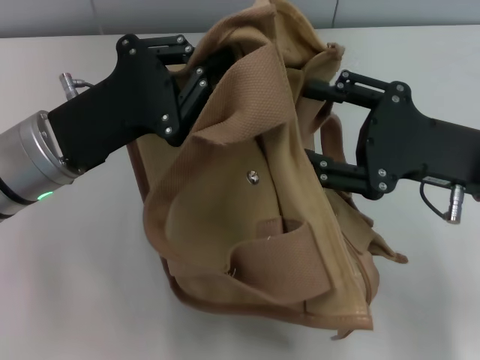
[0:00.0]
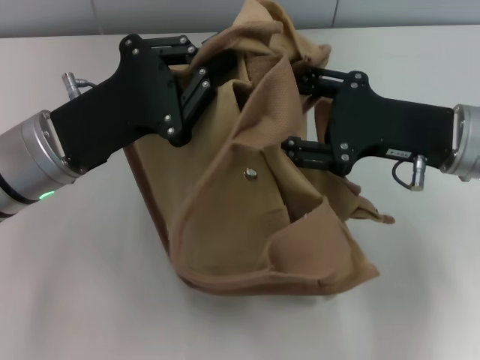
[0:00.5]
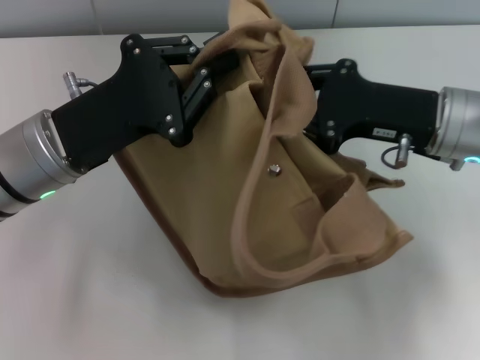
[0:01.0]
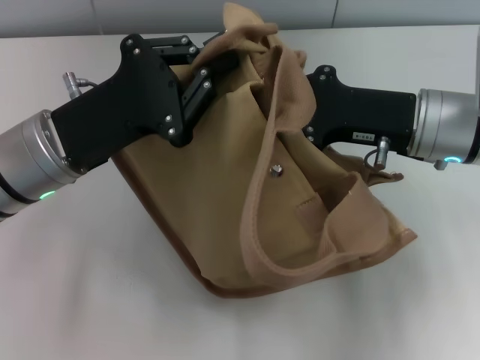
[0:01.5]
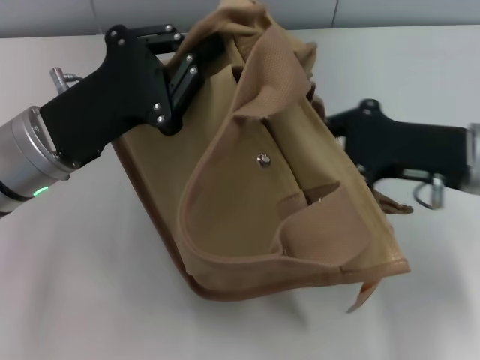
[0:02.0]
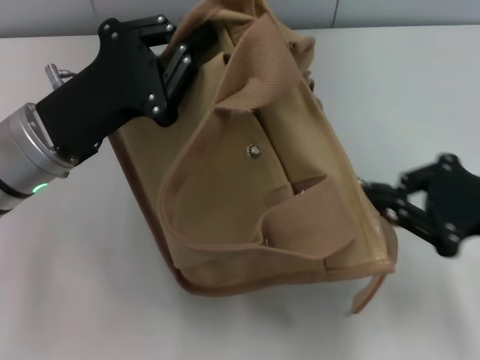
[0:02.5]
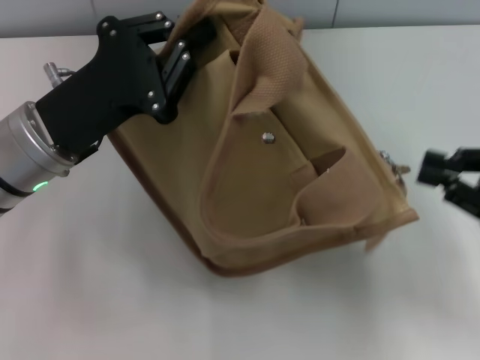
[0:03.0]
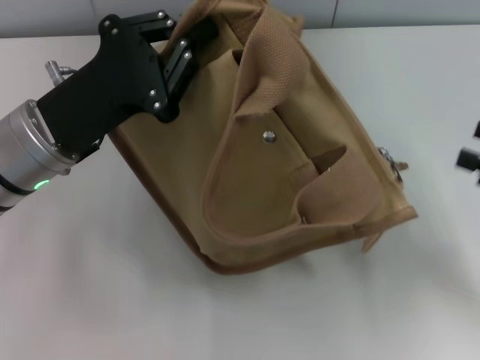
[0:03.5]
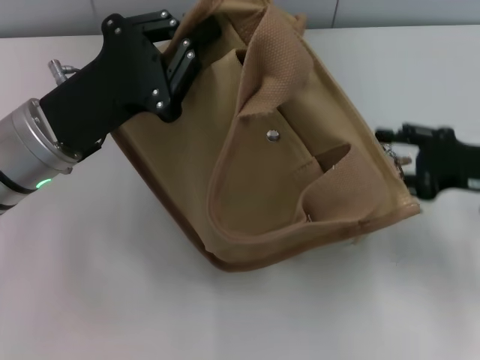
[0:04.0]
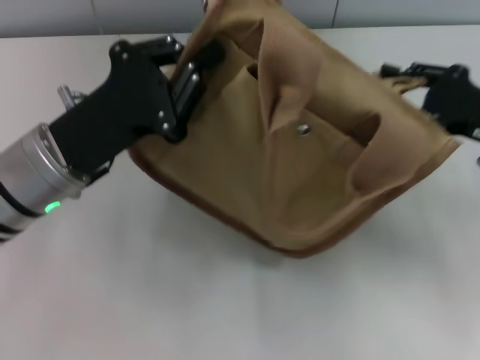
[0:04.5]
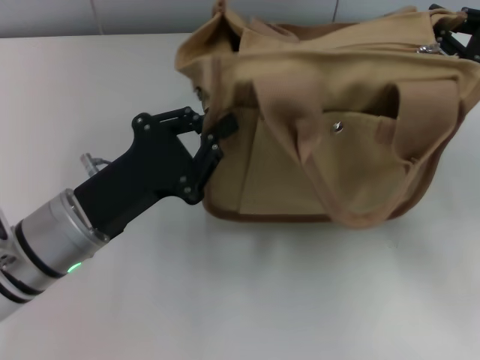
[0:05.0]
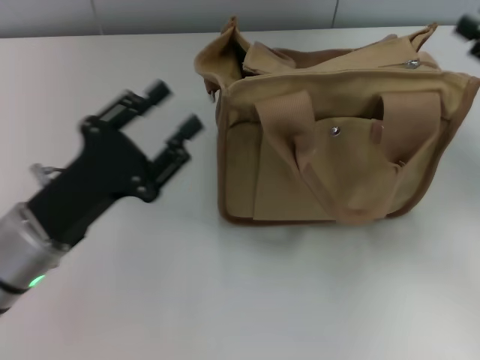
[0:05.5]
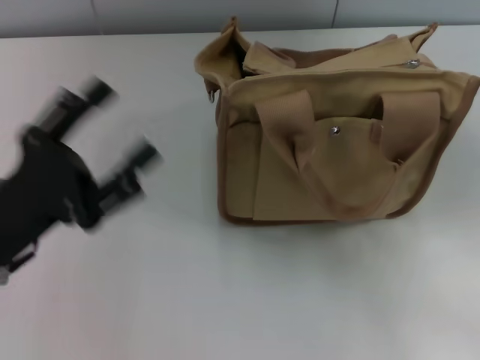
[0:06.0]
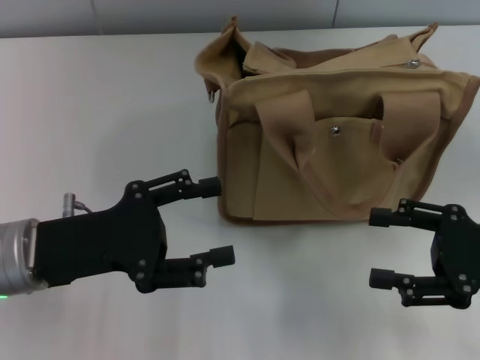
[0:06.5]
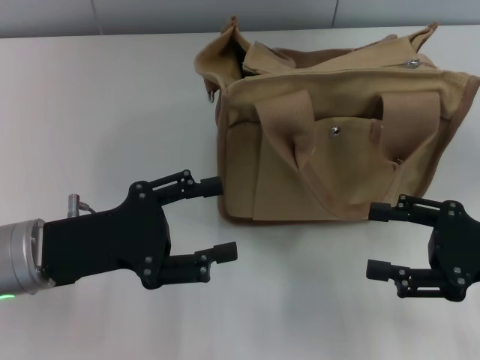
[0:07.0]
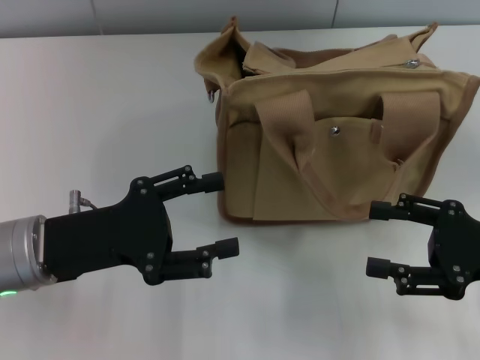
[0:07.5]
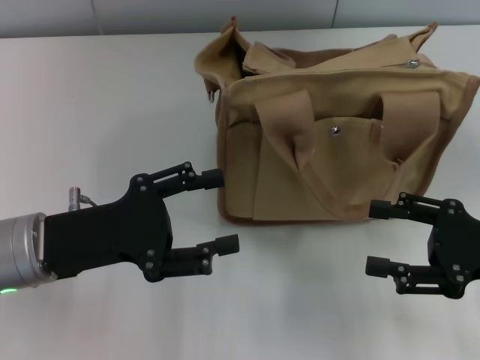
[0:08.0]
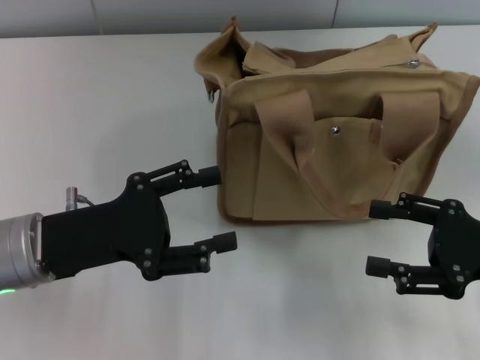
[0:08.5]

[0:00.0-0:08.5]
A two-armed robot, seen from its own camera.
Step, 0:00.0 to 0:02.5: Pull open the zipper with your right hand.
Step, 0:03.0 to 0:05.0: Grab the bag with your left hand.
0:00.0 to 0:02.0: The right gripper closes.
0:02.0 to 0:04.0: The right gripper moves to the right, about 5 cm, and opens.
0:04.0 to 0:06.5: Both grippers move backward, roughly 5 cm. The left gripper opens, while the right gripper closes, then opens again.
0:06.5 to 0:08.5: The two grippers keep their place.

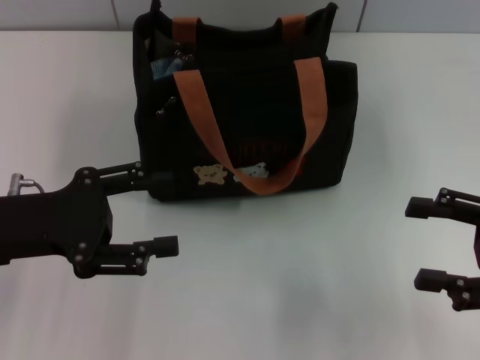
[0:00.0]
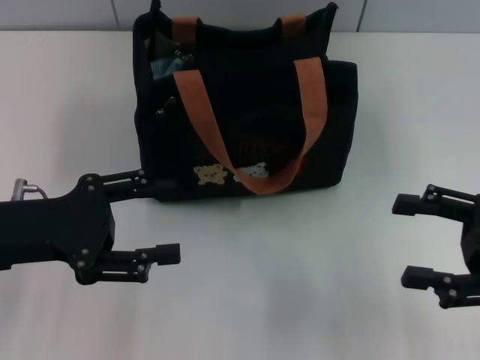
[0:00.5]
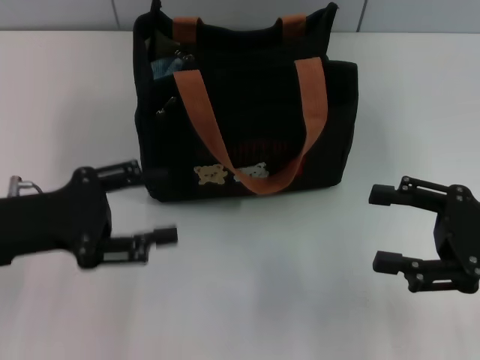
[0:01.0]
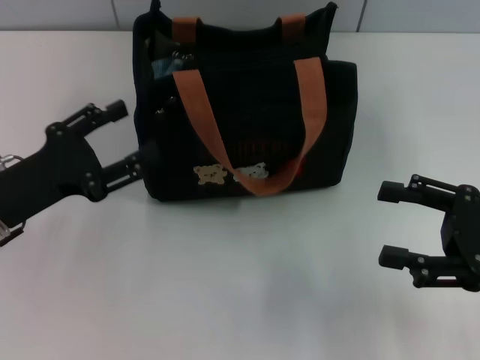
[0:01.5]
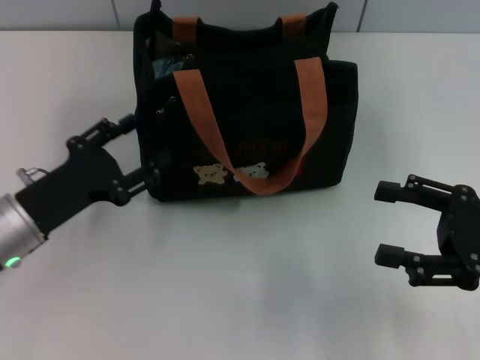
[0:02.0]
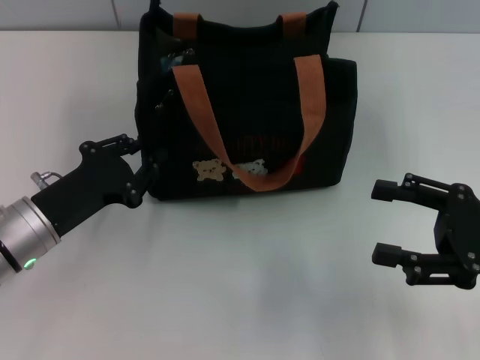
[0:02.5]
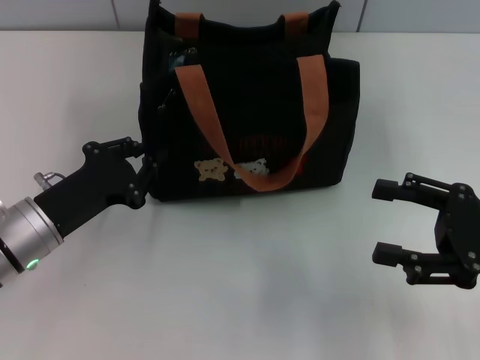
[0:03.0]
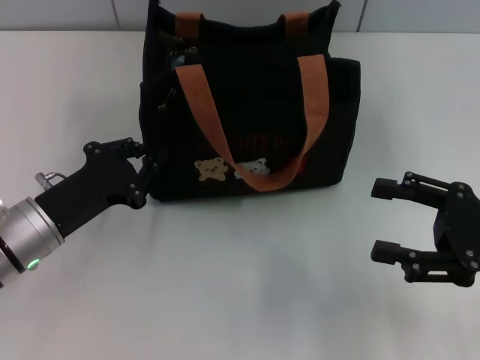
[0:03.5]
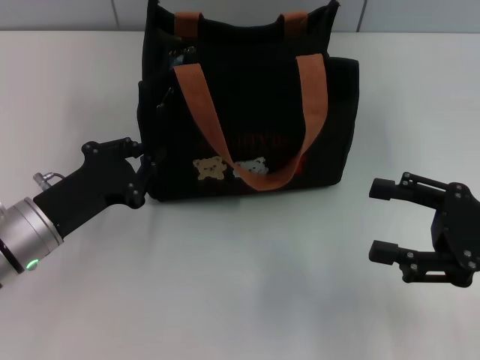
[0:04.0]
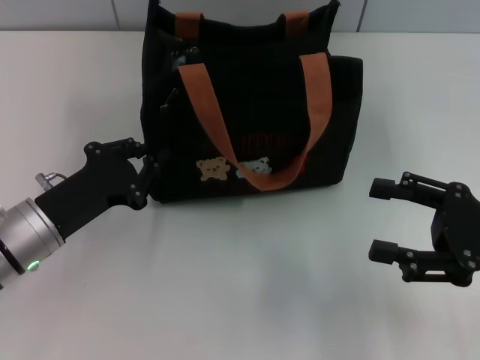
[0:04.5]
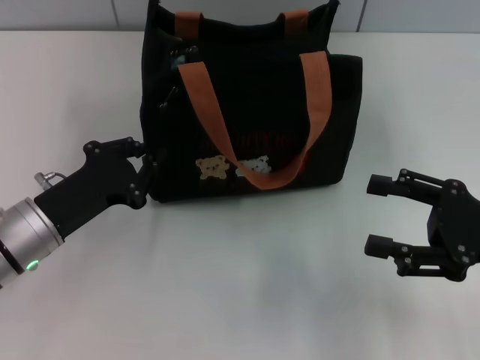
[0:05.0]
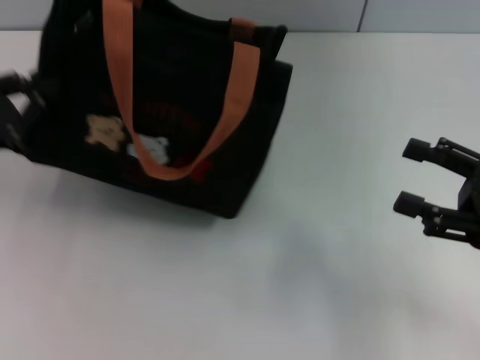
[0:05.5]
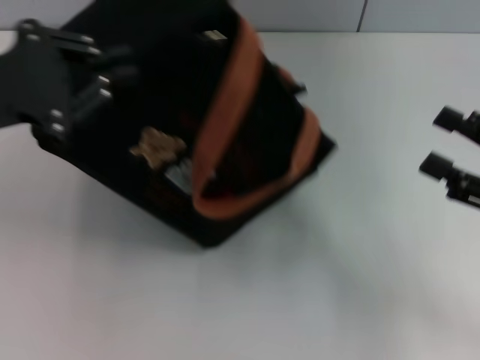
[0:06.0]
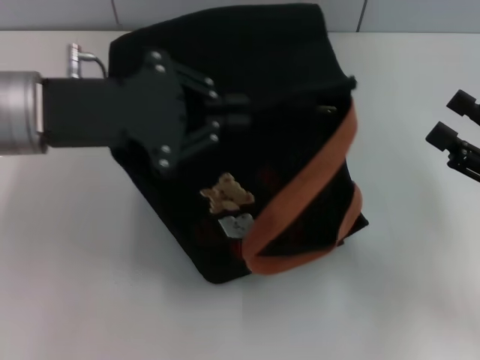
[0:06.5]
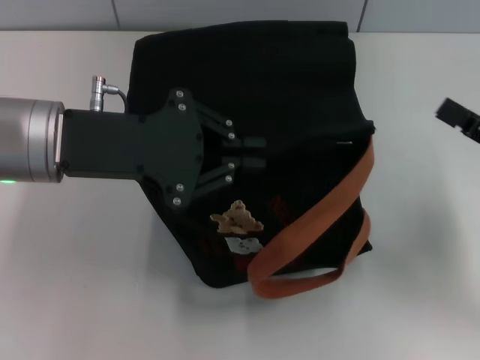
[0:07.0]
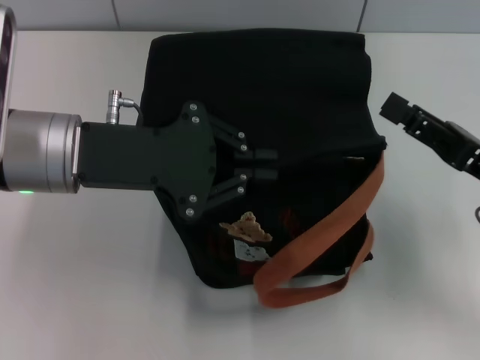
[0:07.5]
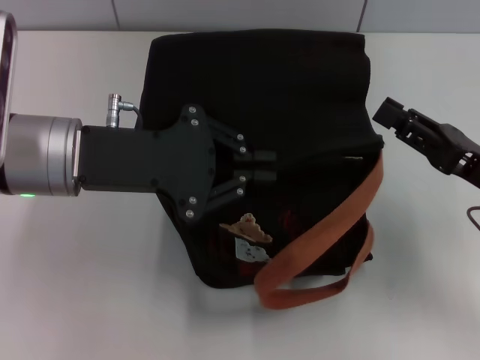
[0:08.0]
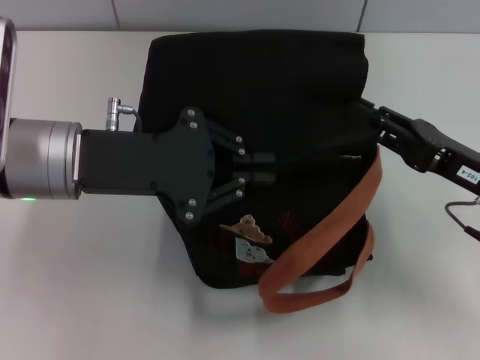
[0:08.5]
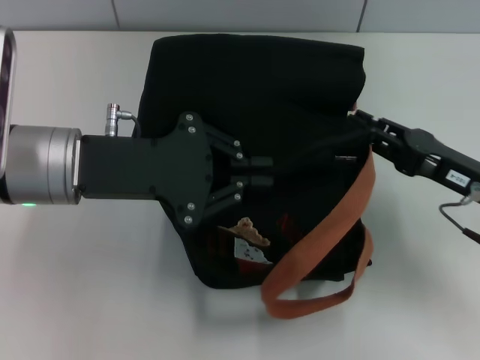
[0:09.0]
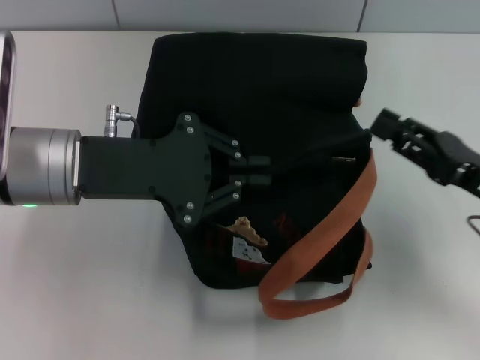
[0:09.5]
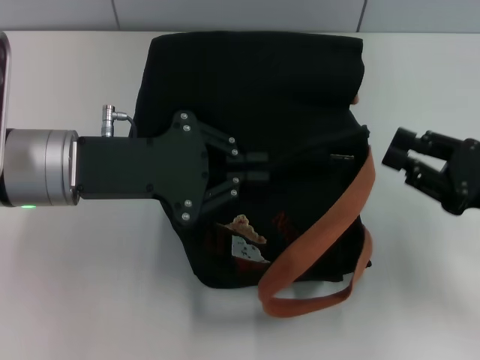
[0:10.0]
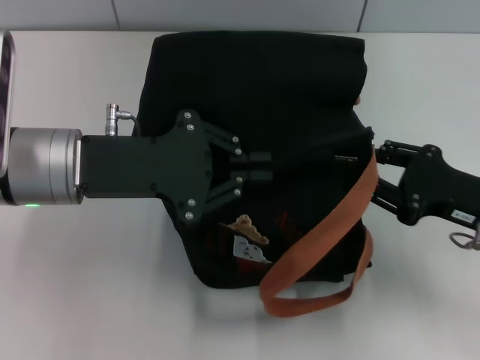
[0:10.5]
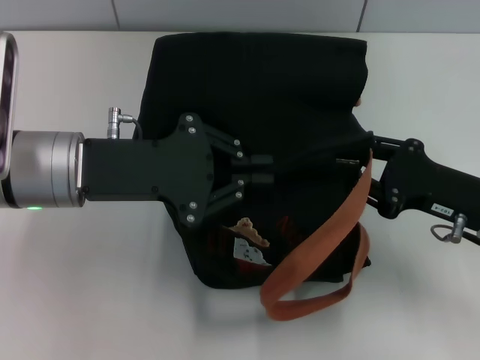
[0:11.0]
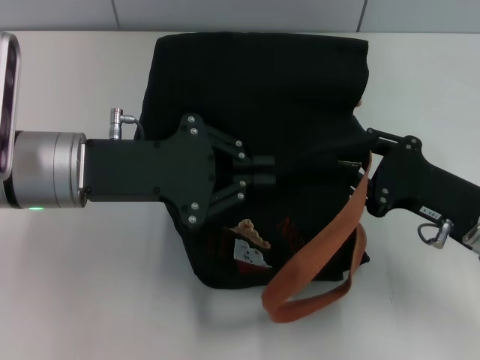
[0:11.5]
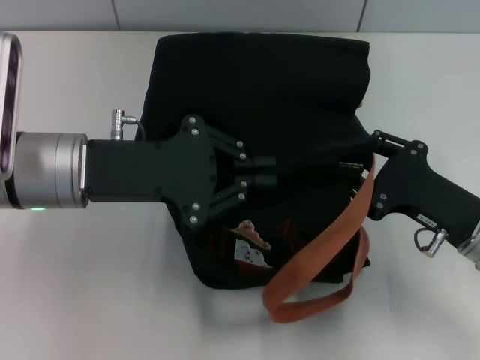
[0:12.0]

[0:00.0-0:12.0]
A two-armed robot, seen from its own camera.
0:00.0 to 0:02.0: The left gripper goes approximately 5 cm downward.
0:02.0 to 0:04.0: The left gripper closes its fingers.
0:04.0 to 0:06.0: The left gripper heads upward, covering approximately 15 cm.
0:06.0 to 0:08.0: The left gripper goes approximately 10 cm to the right; the right gripper ends up about 5 cm from where it was, and closes up.
0:10.0 to 0:12.0: The right gripper travels to the left by about 5 cm.

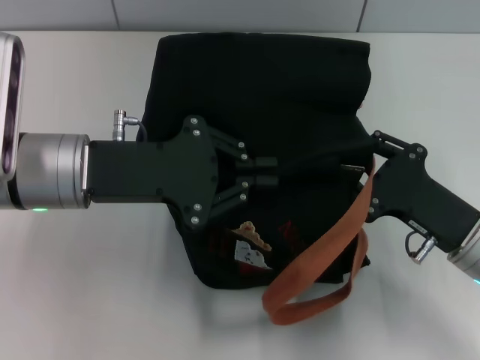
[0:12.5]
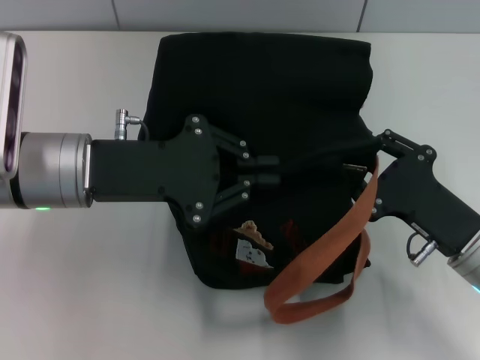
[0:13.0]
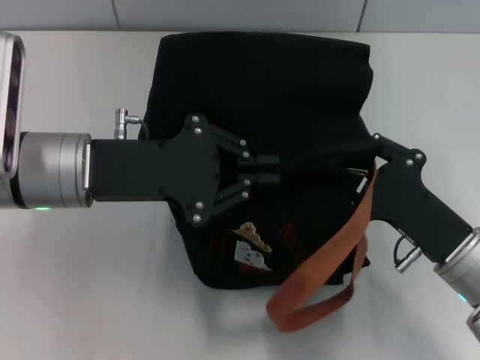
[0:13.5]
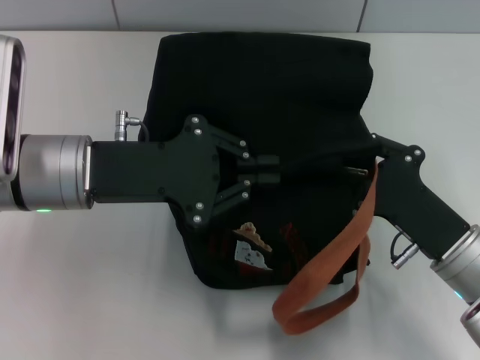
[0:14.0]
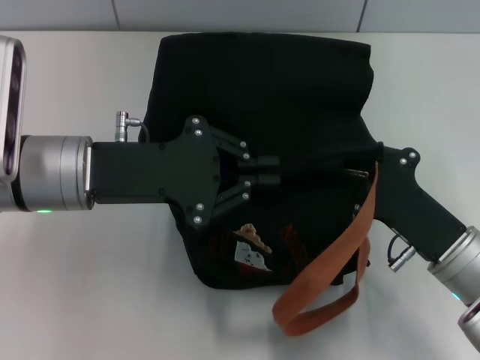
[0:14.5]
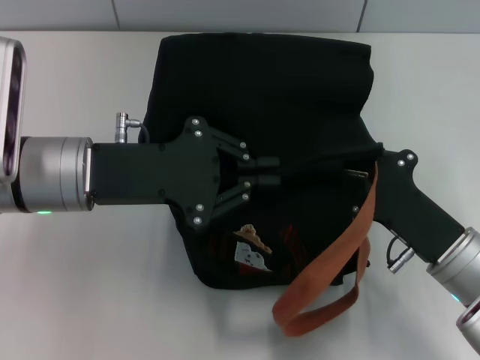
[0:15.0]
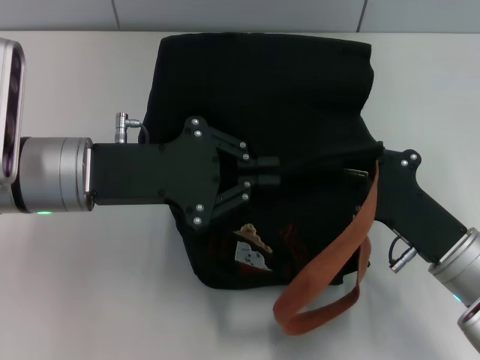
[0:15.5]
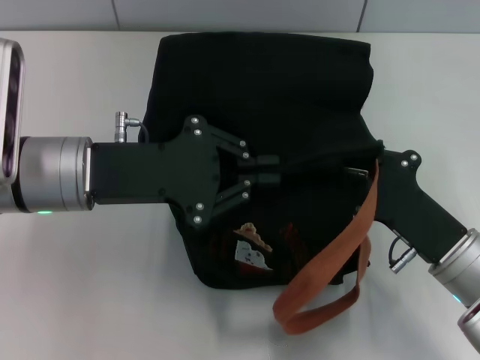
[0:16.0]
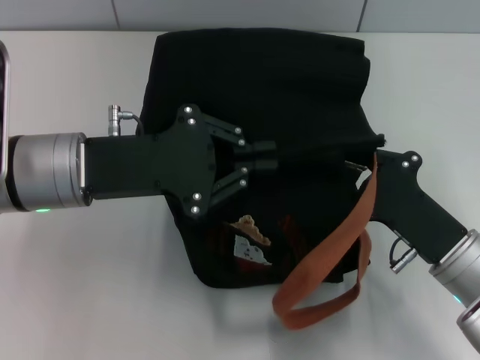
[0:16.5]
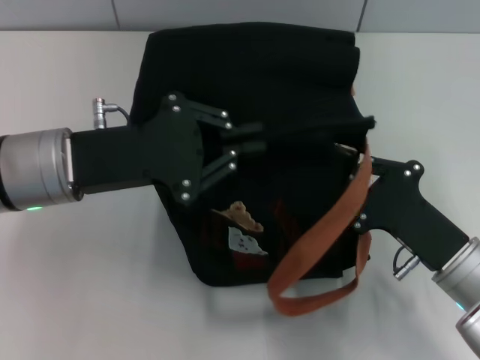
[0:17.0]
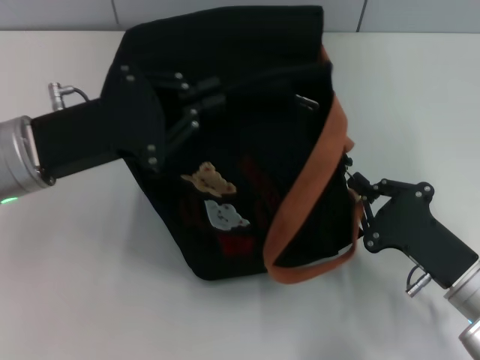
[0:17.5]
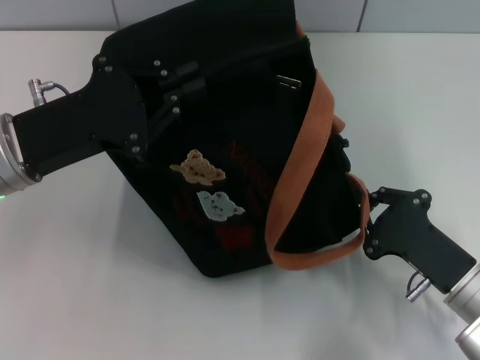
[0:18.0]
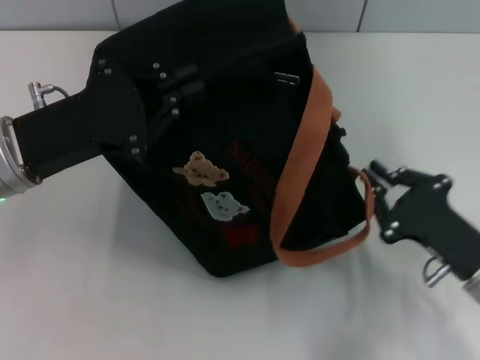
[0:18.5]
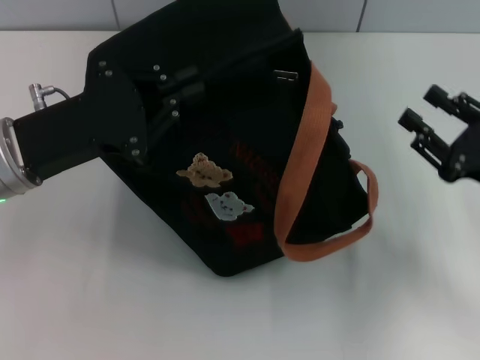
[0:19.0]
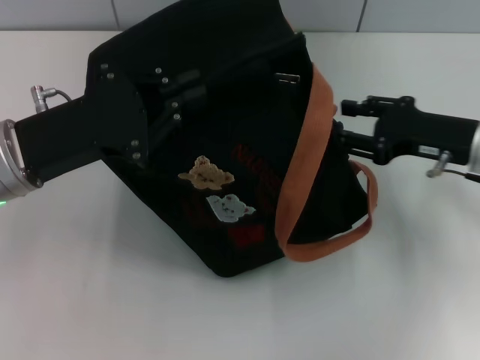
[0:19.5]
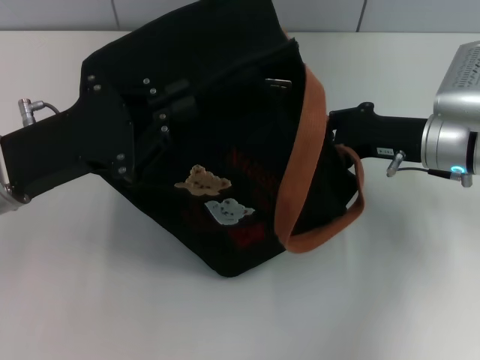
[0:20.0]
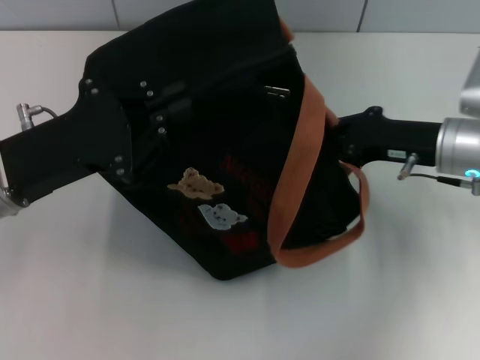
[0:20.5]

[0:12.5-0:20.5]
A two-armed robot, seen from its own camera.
Step, 0:12.5 to 0:18.0: Pull open the zipper with your right hand.
0:12.5 to 0:14.5: The grippers make only small movements.
0:14.5 to 0:16.5: Both grippers stay about where they are.
0:18.5 to 0:20.5: The right gripper shifts some 15 cm forward and upward, and opens and closes again.
